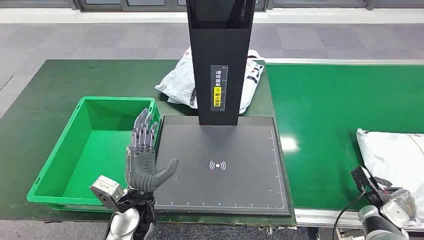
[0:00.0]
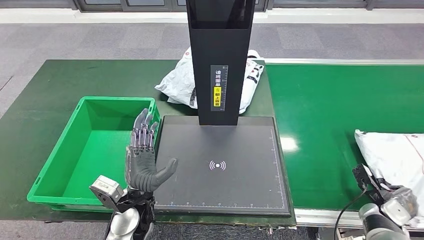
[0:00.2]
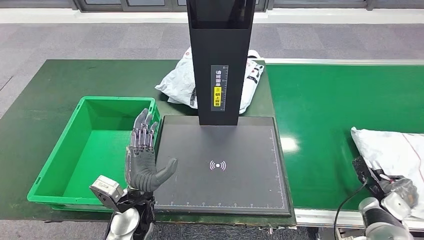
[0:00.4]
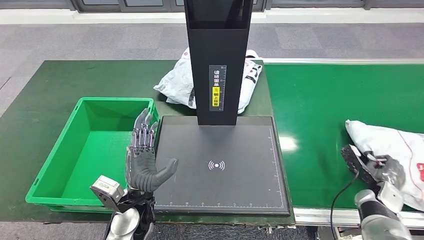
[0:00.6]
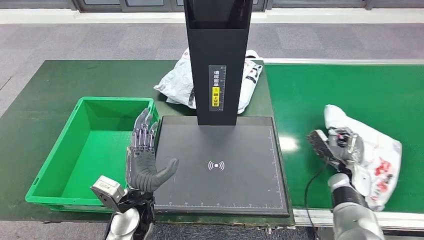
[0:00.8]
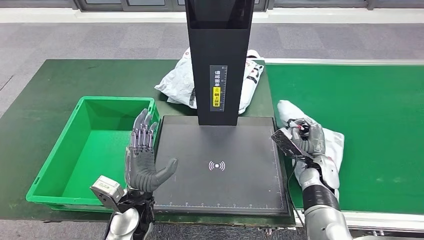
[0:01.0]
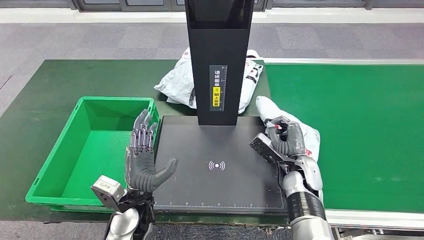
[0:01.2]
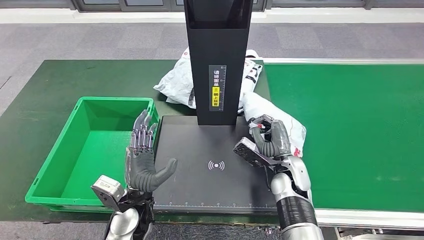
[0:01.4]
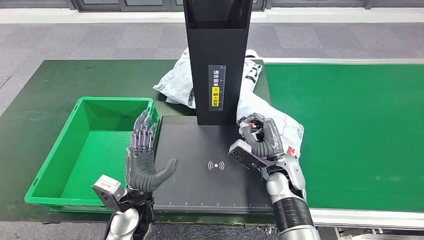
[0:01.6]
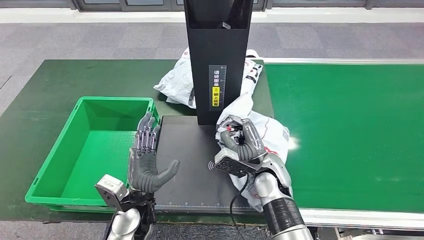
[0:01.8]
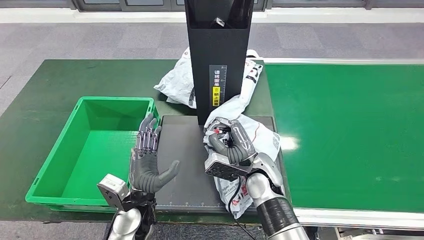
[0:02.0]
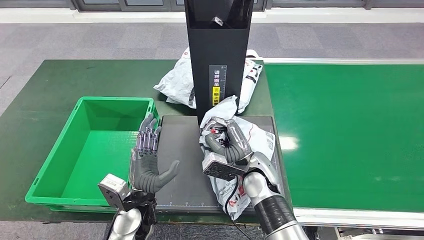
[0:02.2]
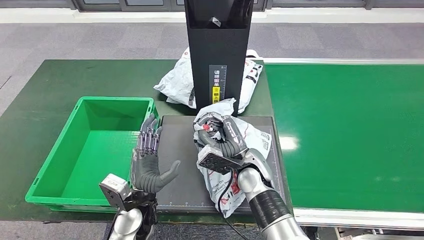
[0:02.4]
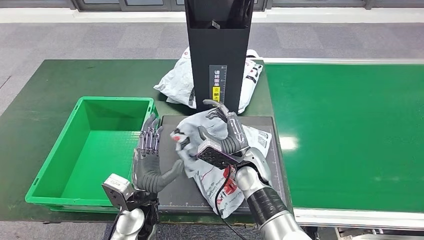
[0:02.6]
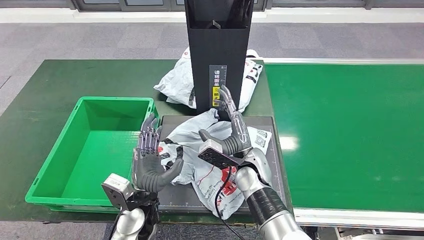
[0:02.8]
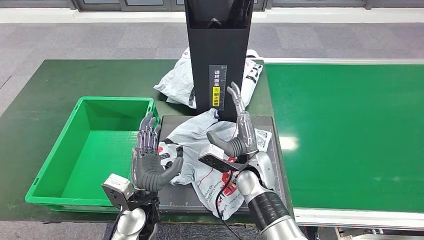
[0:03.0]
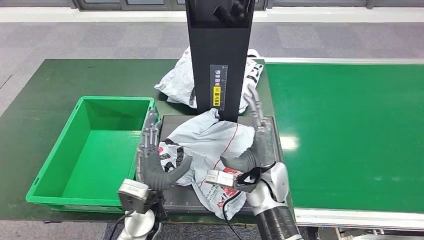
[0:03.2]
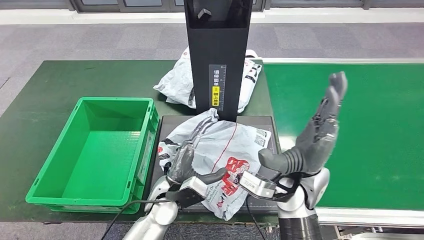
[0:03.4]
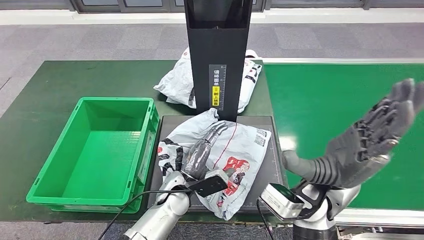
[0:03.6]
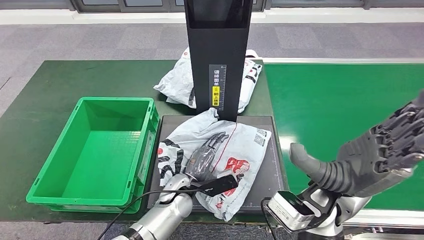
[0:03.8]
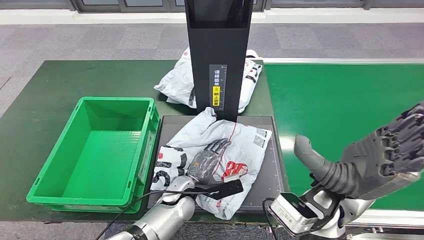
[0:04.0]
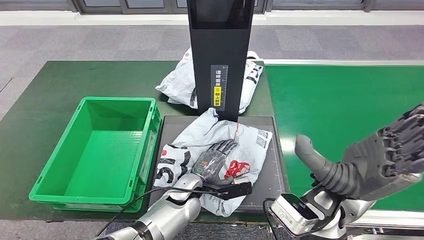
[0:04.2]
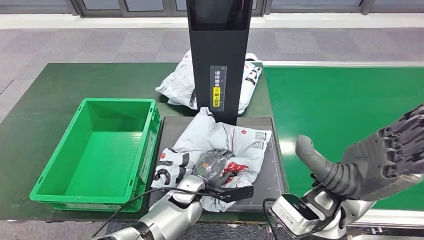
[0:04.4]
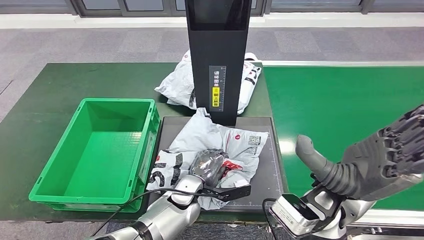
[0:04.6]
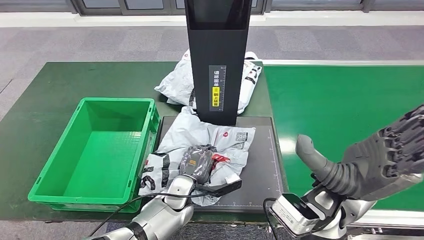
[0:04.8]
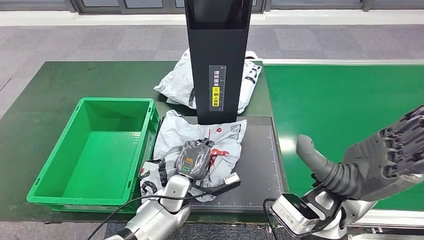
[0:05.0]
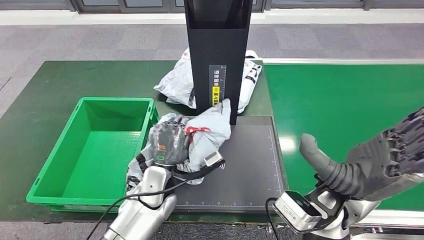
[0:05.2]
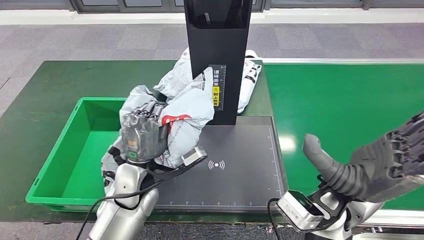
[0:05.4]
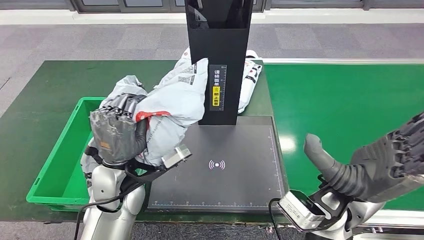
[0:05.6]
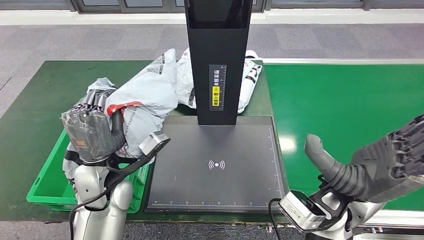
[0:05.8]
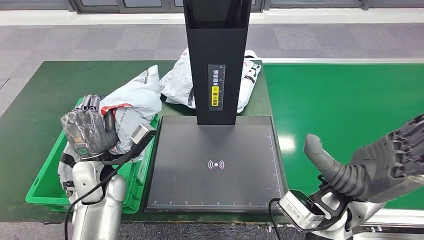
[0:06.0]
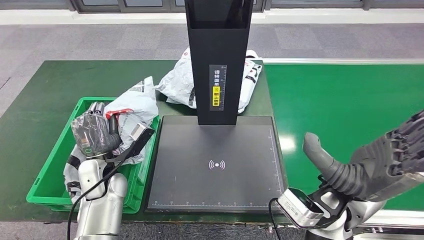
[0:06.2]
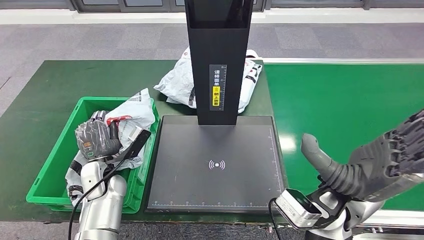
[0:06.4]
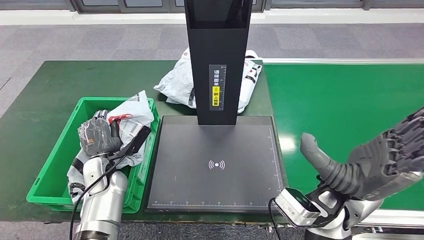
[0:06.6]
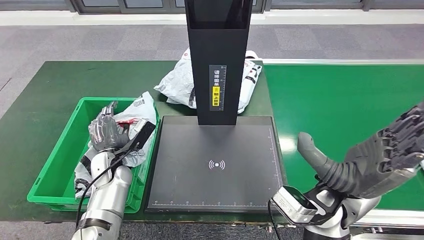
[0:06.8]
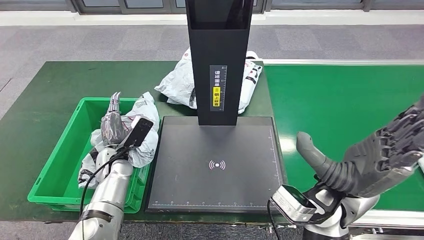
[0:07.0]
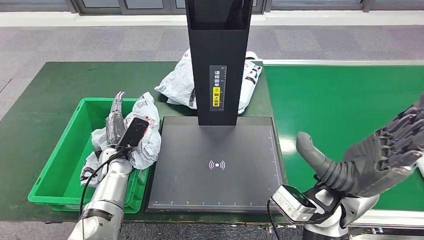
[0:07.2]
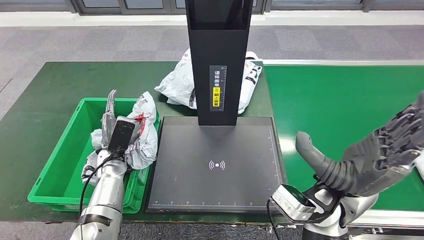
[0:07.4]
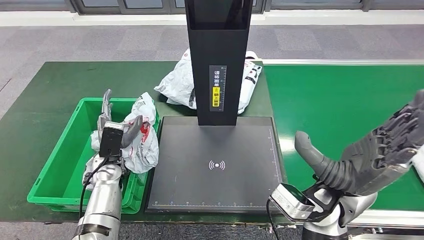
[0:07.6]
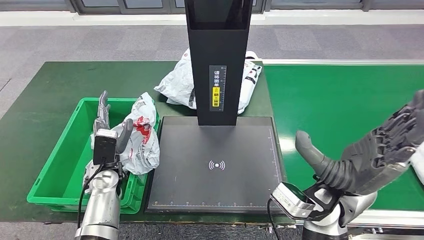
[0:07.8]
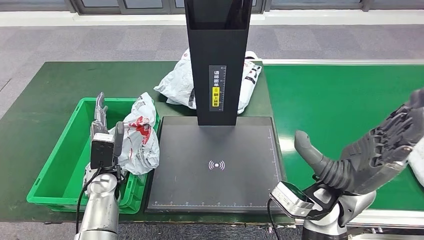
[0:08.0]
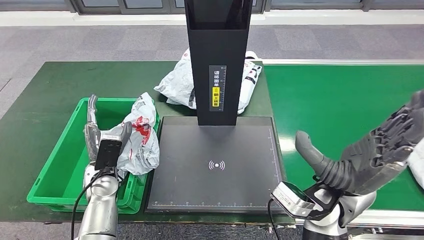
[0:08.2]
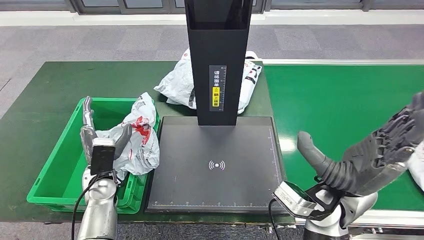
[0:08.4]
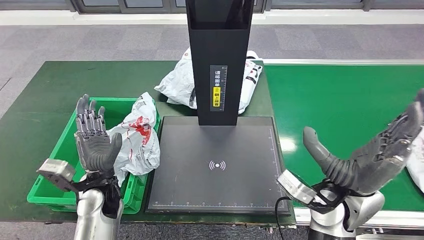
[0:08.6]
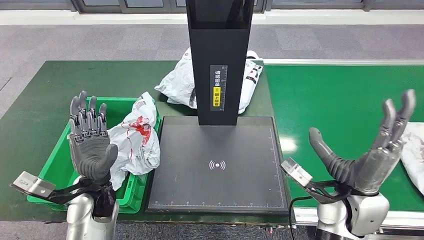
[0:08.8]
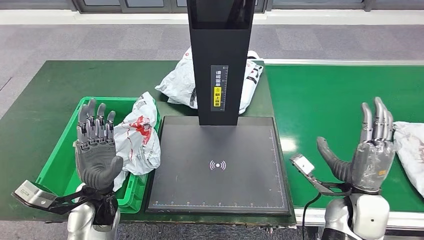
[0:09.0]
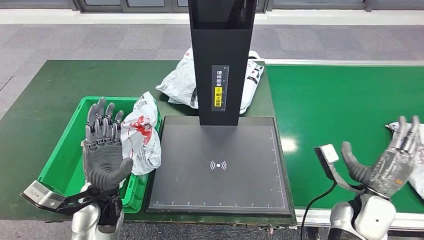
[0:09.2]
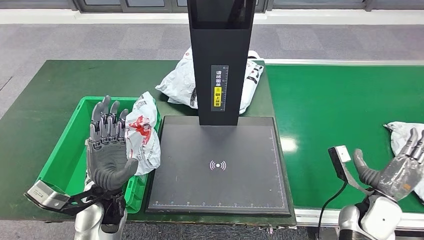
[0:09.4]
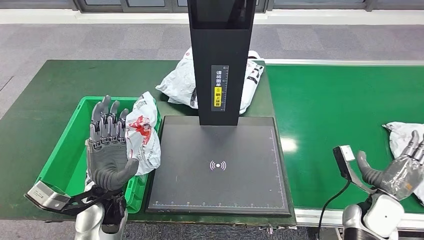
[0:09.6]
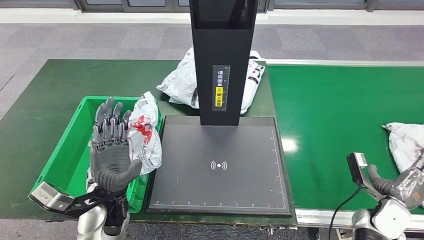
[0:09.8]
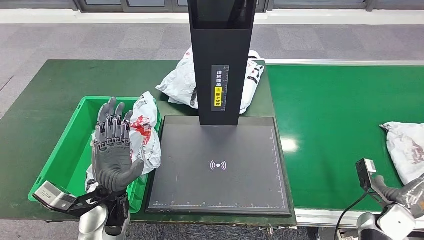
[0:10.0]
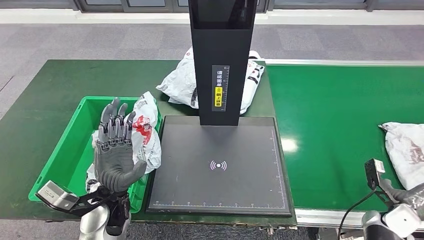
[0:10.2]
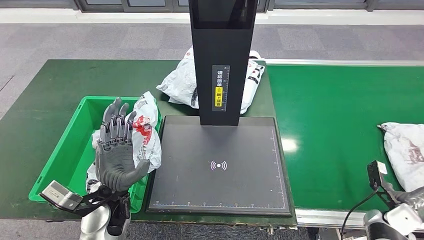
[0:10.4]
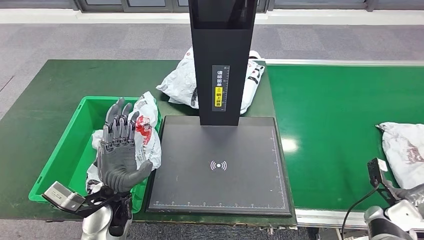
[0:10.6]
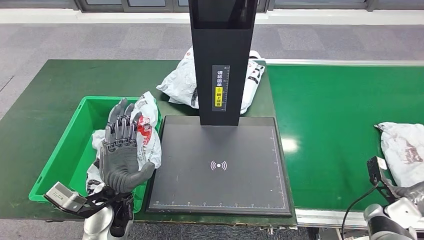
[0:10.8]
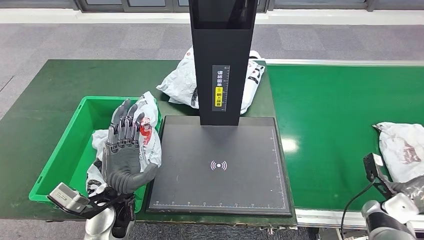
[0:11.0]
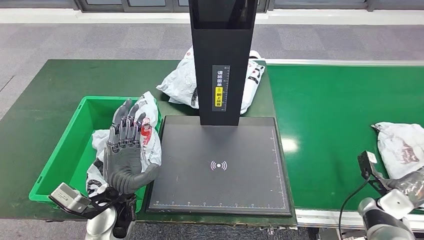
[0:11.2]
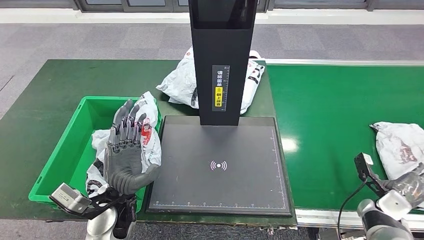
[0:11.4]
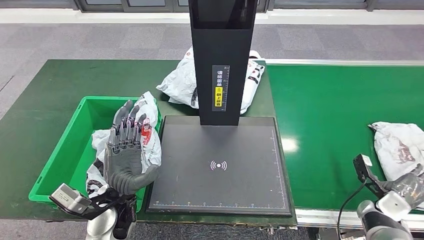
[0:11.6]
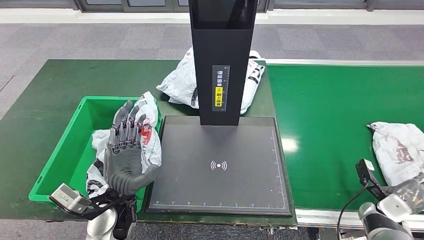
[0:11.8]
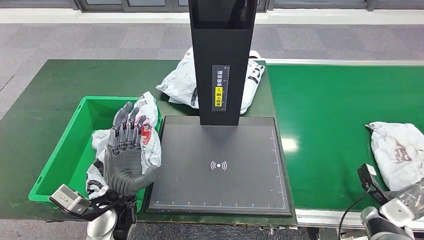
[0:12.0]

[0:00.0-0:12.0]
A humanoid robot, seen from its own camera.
Step, 0:00.0 to 0:02.2: Take the parcel off the conveyor belt.
Step, 0:02.6 to 0:03.4: Place the parcel onto the inbound machine.
Step, 0:03.6 to 0:05.4: Pick up the parcel from the inbound machine.
Step, 0:05.6 to 0:08.0: Put the parcel inside the courier box.
0:01.6 to 0:03.0: The right hand goes about 10 cm to the left.
0:09.0 to 0:10.4: The right hand moves to the right and downward, approximately 25 cm.
0:10.4 to 0:12.0: The hands make only small movements.

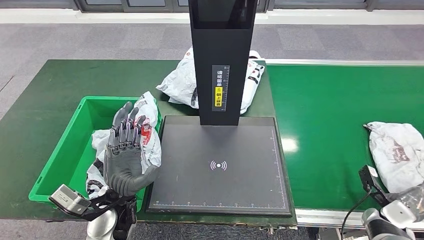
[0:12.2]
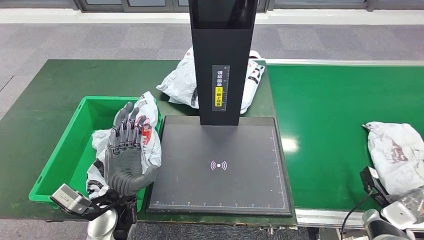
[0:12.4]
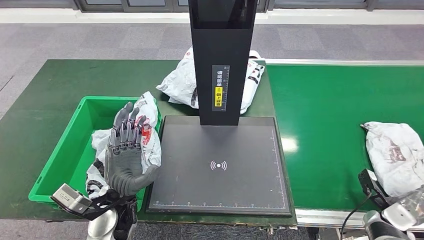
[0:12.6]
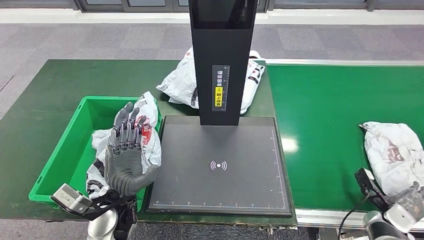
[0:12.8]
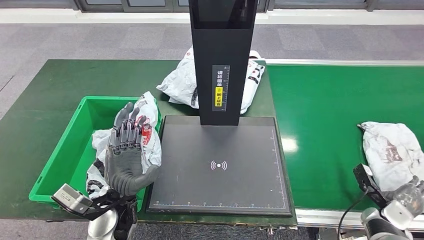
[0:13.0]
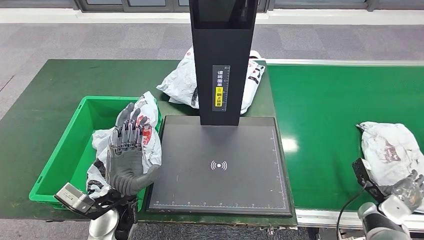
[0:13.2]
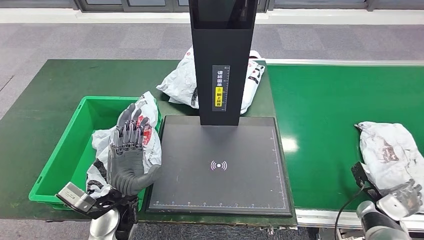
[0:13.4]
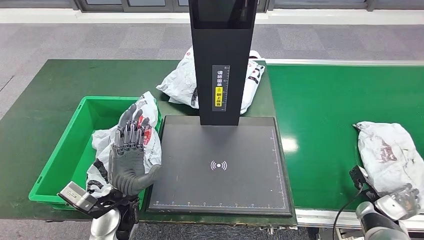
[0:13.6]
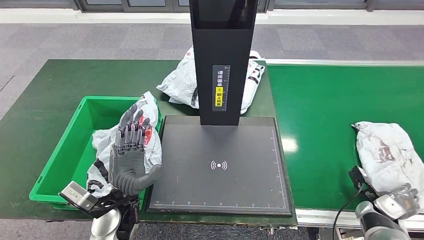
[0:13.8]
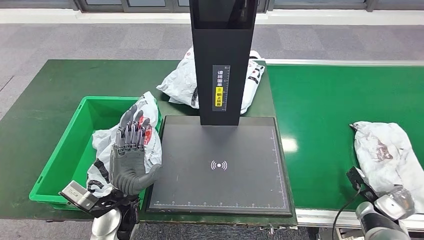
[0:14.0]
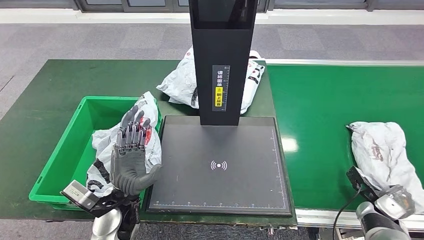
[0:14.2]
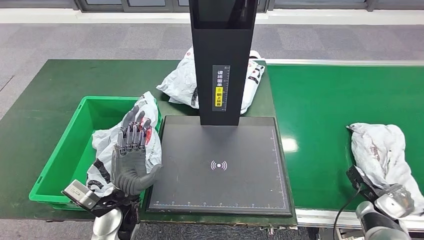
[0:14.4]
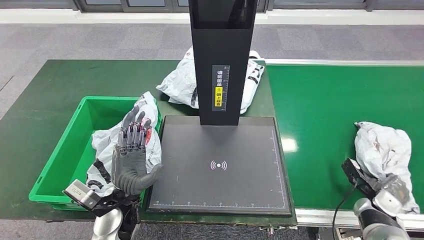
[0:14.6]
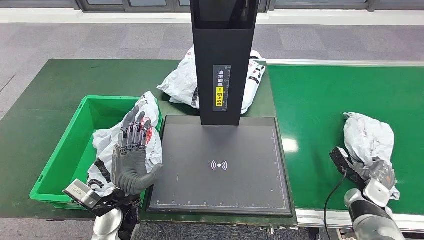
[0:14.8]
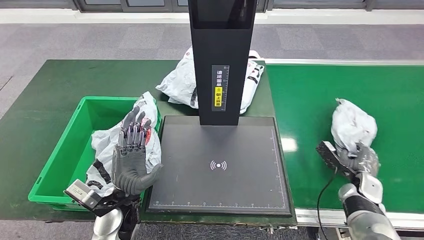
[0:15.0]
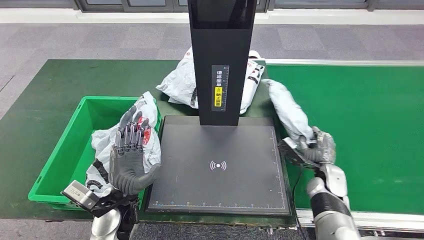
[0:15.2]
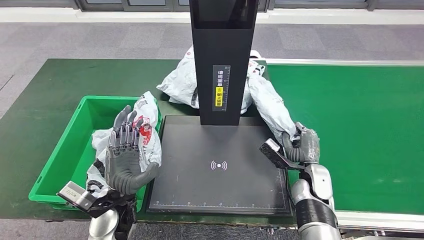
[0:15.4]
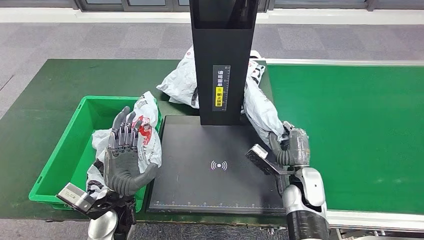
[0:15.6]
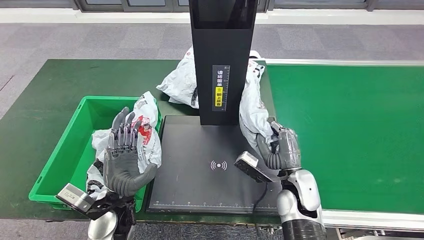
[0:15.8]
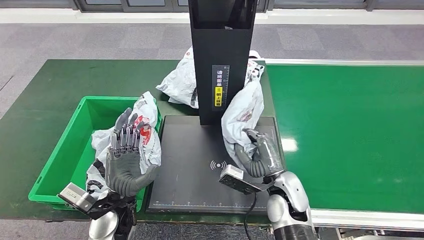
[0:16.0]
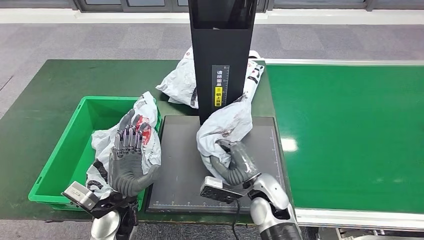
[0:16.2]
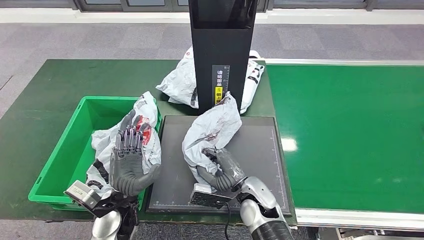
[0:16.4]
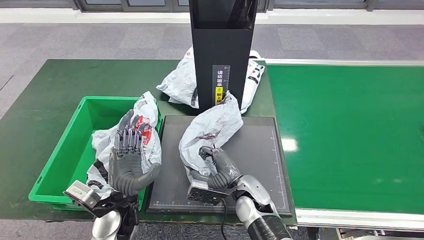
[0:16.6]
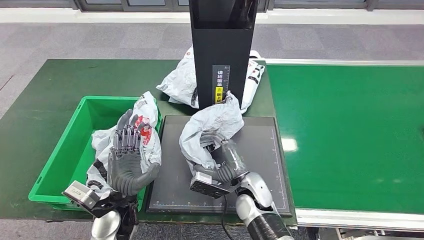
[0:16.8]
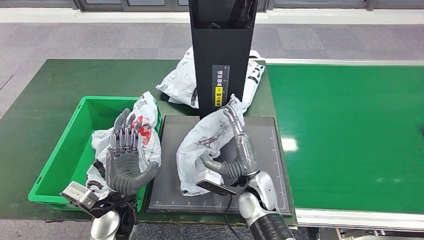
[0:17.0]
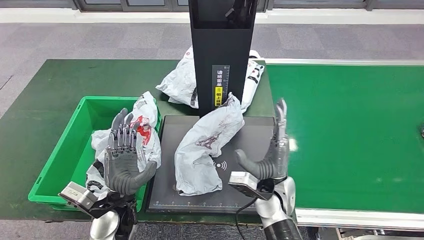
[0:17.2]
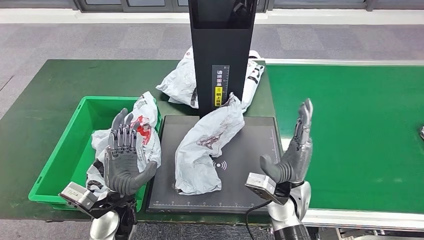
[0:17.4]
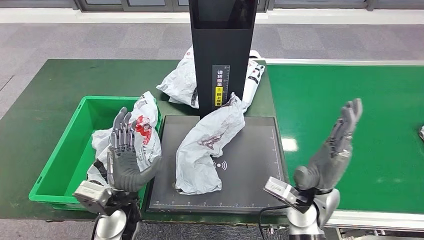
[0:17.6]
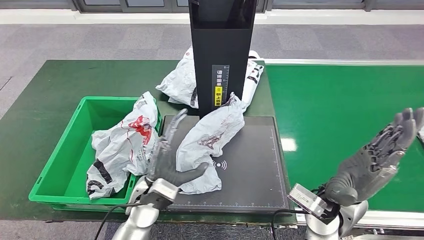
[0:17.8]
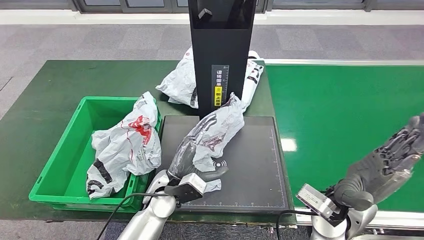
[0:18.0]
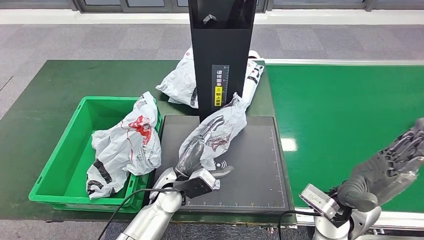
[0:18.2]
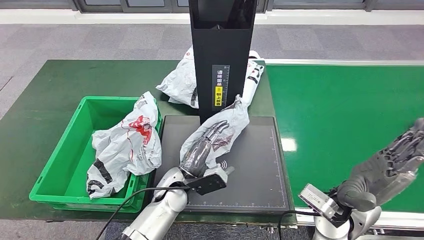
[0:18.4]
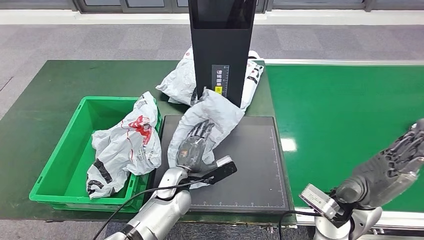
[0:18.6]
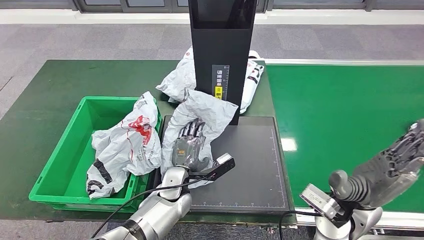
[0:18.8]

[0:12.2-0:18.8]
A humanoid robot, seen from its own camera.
Step, 0:12.2 to 0:16.0: Pick up the parcel from the conveyor belt.
Step, 0:16.4 to 0:17.6: Place the parcel onto the inbound machine.
0:12.2 to 0:13.8: The hands stay close to where they were, moving slightly.
0:13.8 to 0:15.4: The right hand moves to the left, some 20 cm.
0:15.4 to 0:17.2: The right hand is displaced to the left by approximately 15 cm.
